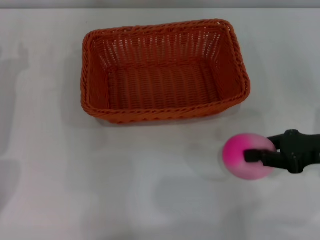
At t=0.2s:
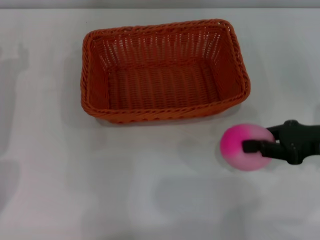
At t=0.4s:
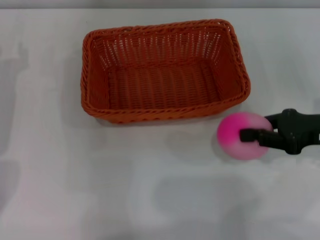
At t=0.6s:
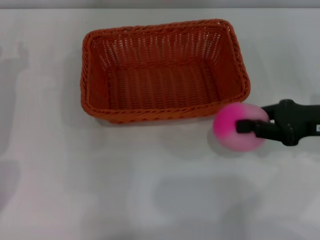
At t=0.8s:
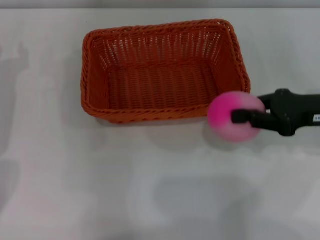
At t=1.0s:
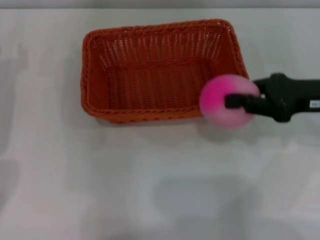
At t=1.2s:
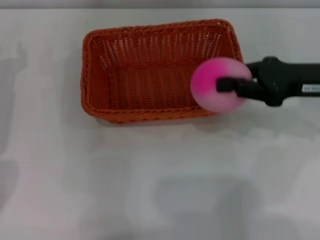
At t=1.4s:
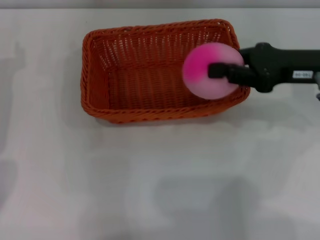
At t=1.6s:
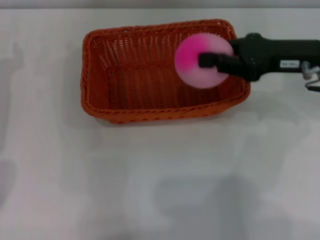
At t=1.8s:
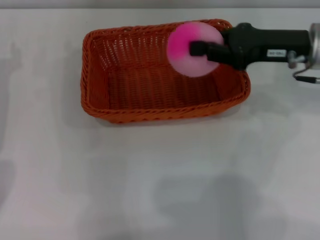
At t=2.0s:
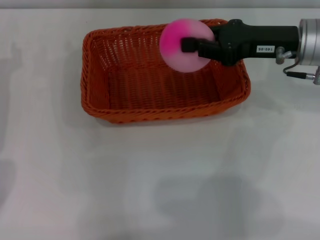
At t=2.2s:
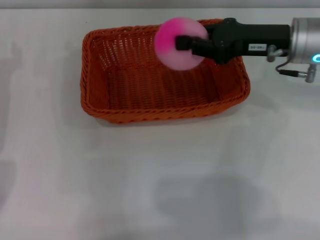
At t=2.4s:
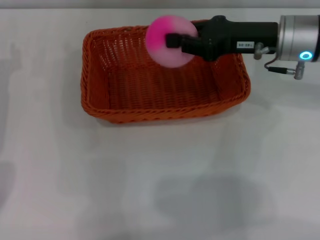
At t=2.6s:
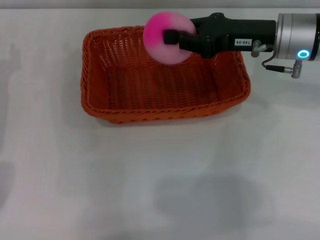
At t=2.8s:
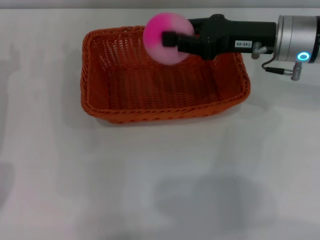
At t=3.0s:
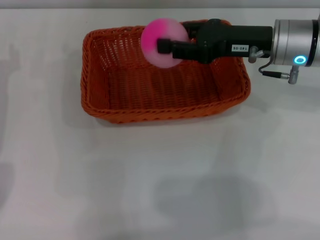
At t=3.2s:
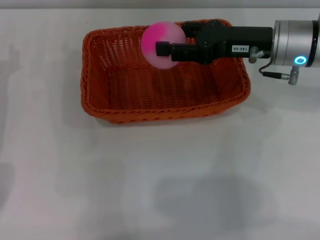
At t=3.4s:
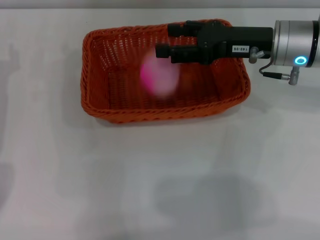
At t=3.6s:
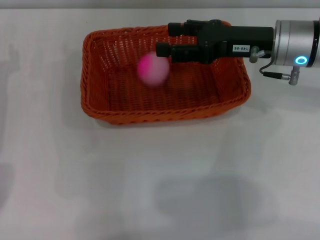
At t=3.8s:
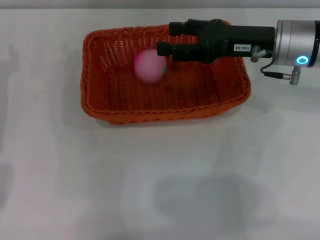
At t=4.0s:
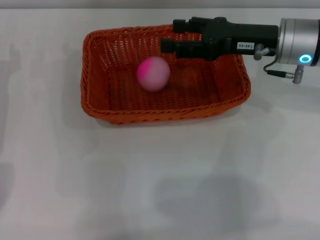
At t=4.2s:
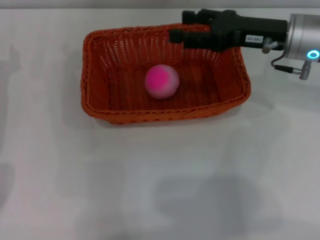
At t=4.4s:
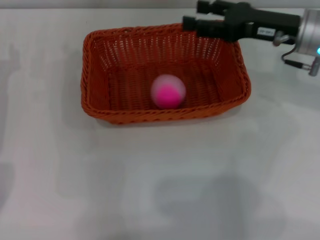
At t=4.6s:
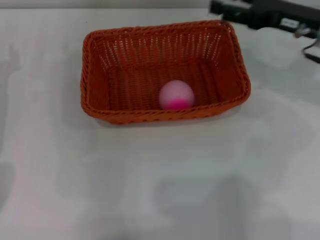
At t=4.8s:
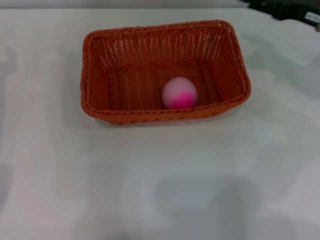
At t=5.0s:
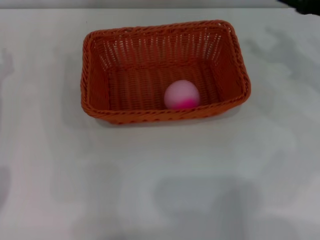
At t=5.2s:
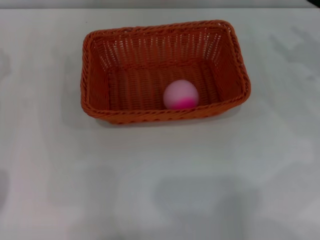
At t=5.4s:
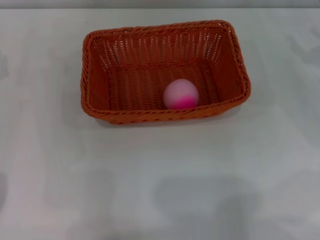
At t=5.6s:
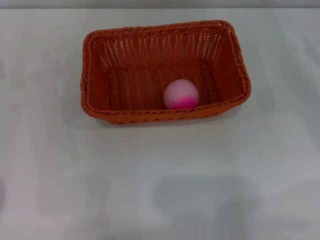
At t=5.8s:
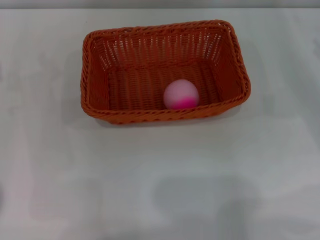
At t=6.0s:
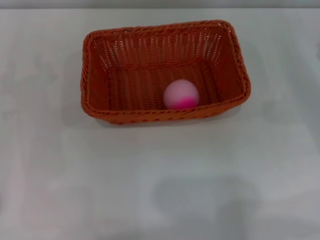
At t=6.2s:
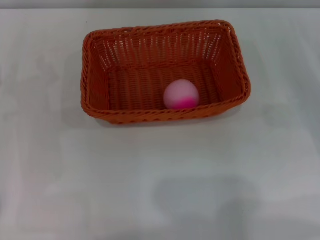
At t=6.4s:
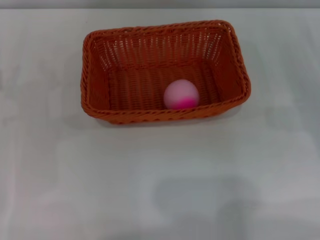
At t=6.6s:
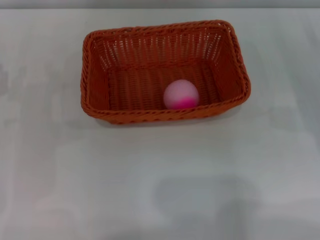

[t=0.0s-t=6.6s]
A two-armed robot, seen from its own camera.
t=0.0s to t=1.6s: The right gripper goes about 15 cm forward, upward and to the left.
t=1.6s to t=3.2s: The right gripper moves roughly 5 cm, and opens its fingers.
t=3.2s to t=5.0s: The right gripper heads to the right, covering some 15 cm, and opens up.
t=5.0s to t=6.6s: The right gripper goes about 10 cm downward and backward.

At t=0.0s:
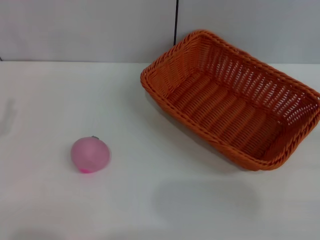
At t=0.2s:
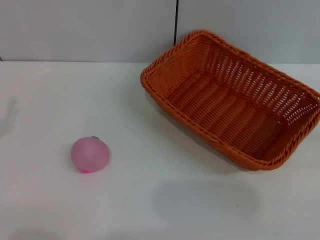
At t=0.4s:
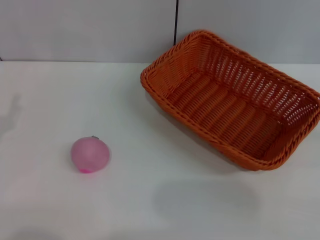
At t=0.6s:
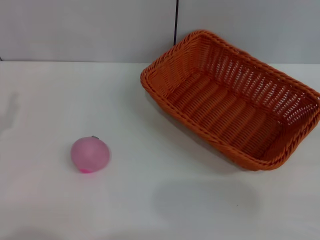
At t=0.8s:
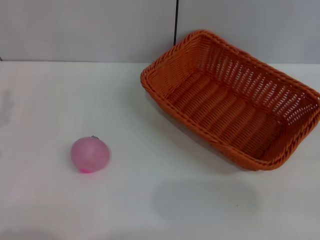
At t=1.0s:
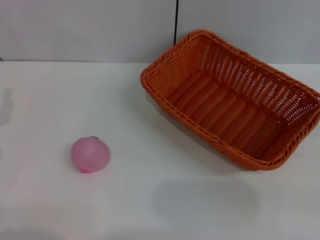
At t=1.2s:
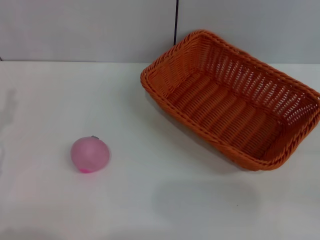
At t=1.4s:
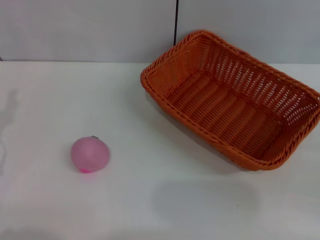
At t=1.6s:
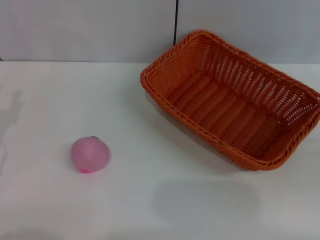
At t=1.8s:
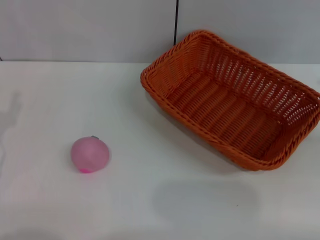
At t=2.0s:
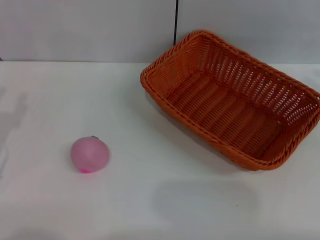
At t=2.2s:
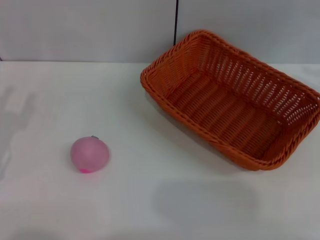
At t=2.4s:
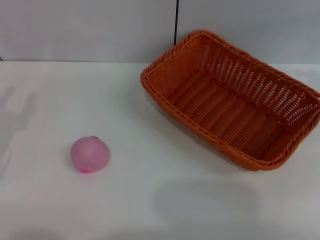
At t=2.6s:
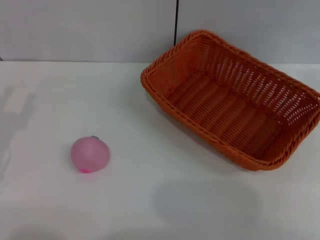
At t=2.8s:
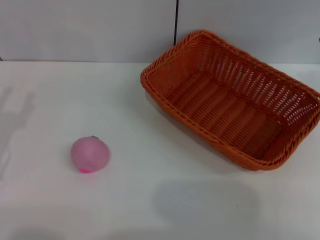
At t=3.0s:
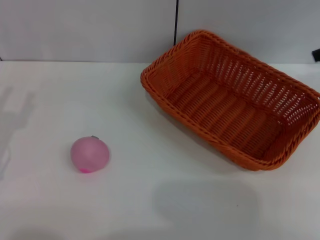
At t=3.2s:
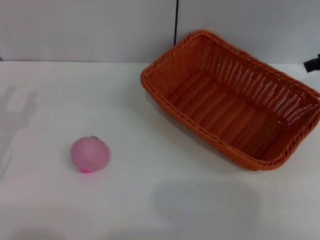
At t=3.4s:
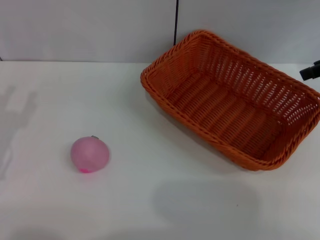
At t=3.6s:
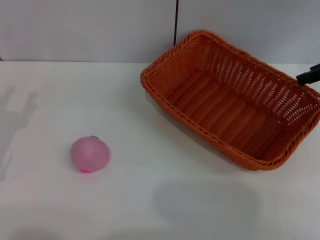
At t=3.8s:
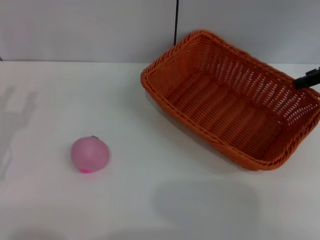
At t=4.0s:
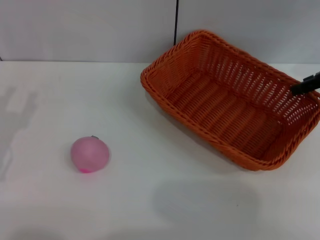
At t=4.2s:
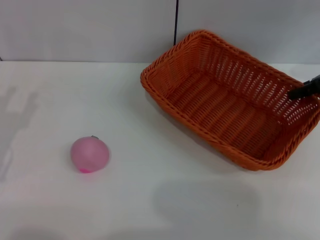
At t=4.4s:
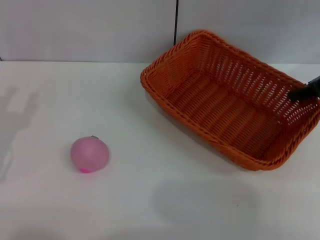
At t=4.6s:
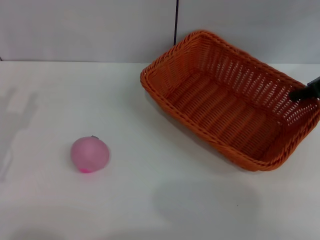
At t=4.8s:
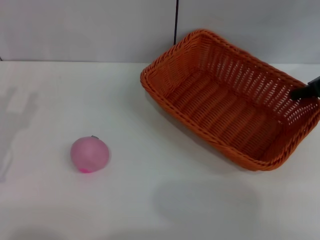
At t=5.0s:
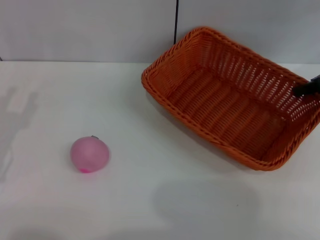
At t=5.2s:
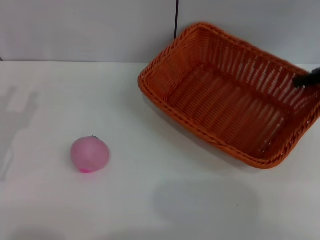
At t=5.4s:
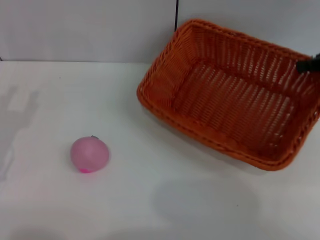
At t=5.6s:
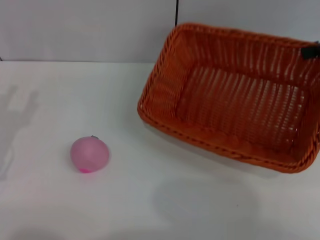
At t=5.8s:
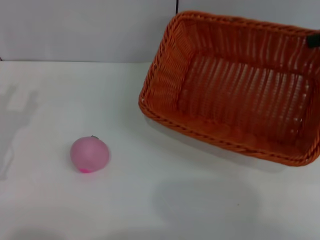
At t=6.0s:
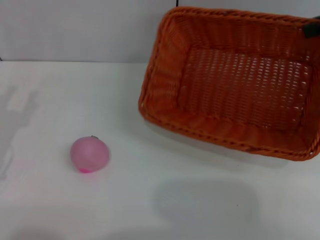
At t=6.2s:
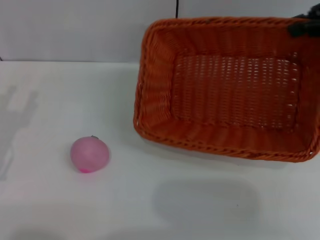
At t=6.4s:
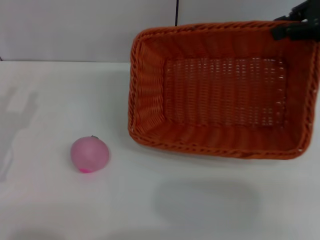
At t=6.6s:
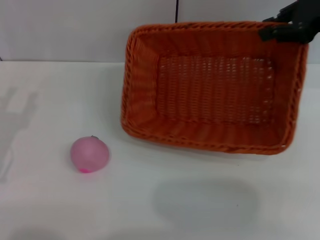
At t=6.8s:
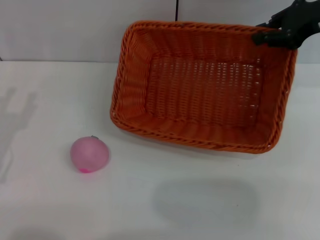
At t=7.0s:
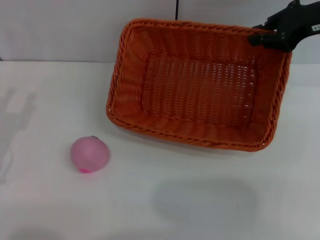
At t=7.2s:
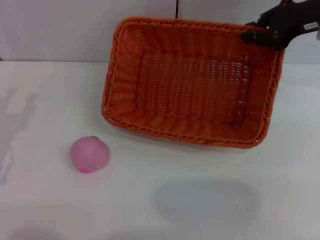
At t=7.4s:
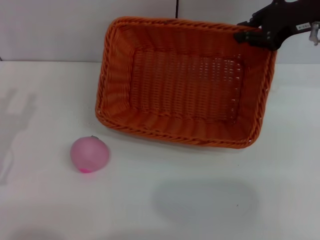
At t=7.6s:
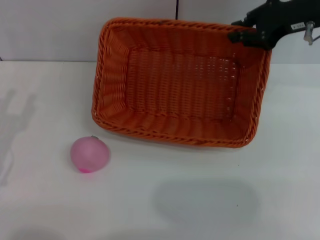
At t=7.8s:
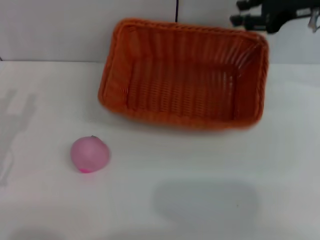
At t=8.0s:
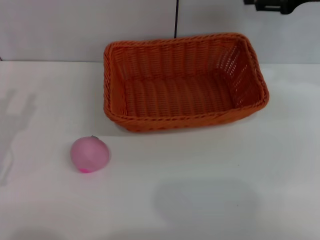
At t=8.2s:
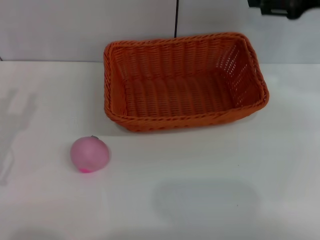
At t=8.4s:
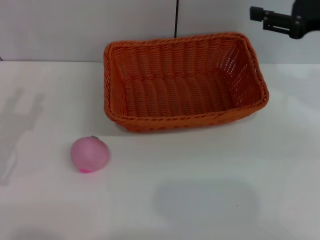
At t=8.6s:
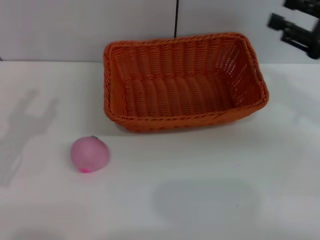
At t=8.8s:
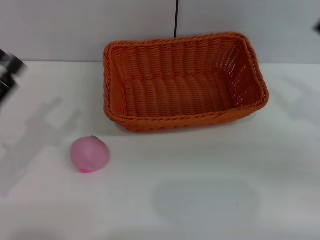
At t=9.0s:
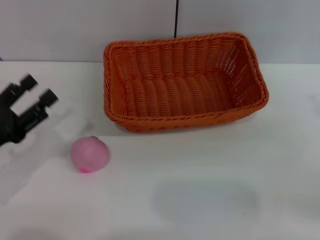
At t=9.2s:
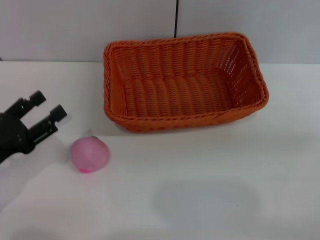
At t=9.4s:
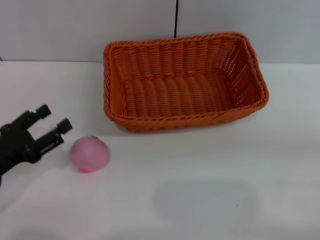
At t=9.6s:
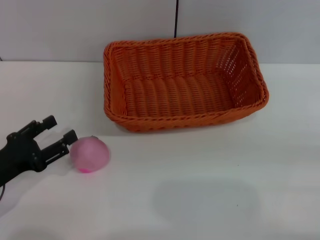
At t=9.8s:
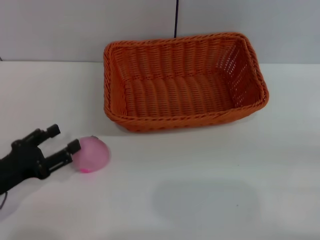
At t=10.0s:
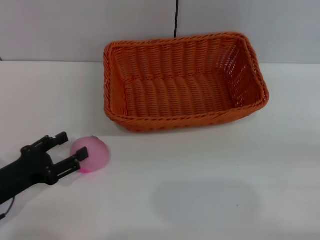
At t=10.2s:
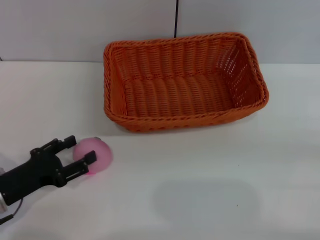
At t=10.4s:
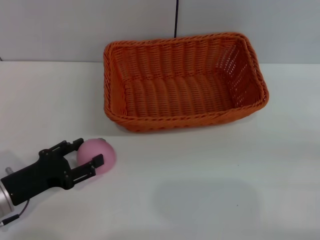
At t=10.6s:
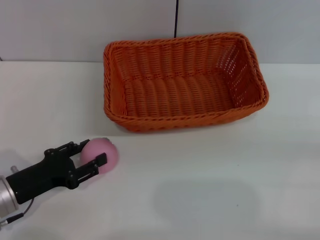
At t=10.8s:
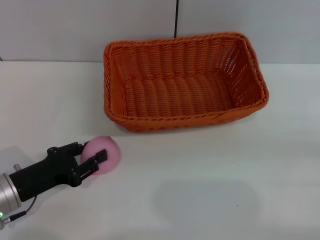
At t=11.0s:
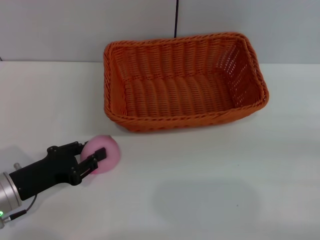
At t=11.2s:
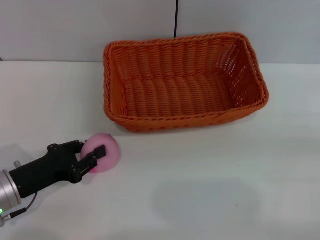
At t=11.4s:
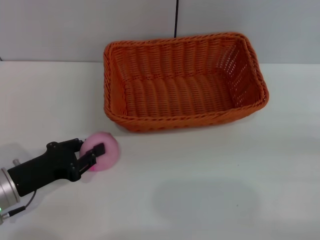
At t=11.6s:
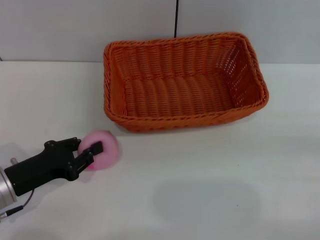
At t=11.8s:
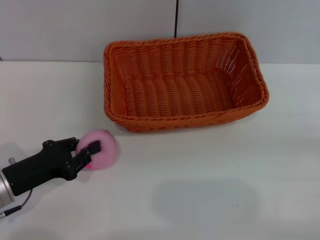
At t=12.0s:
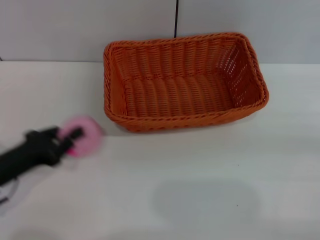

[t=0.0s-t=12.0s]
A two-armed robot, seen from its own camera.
Step, t=0.0s to t=5.0s: Pick up the light basket with the right gripper.
Step, t=5.2s to t=8.4s: Place the light basket in the center of view with the right gripper.
t=3.0s to t=4.4s: The right gripper is displaced downward by about 10 cm, and closes.
t=4.4s to t=6.0s: The right gripper heads upward, covering approximately 10 cm, and closes up.
t=6.0s to t=7.6s: The right gripper is displaced to the left and downward by approximately 10 cm.
t=7.6s to t=9.0s: The right gripper goes roughly 25 cm backward, to the right and downward, and opens.
t=9.0s to t=10.4s: The left gripper heads downward, covering approximately 5 cm.
t=10.4s to t=12.0s: The left gripper closes its fingers.

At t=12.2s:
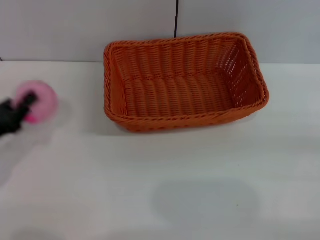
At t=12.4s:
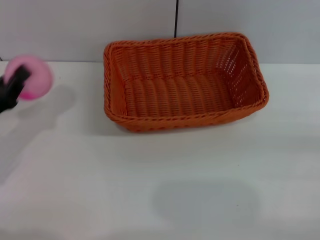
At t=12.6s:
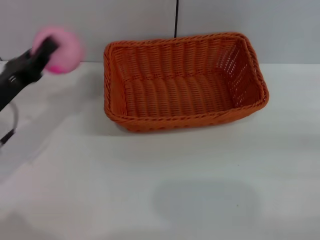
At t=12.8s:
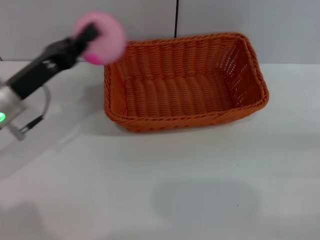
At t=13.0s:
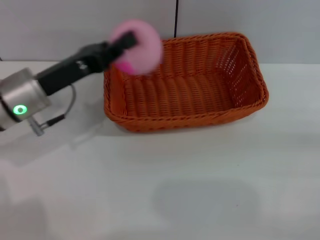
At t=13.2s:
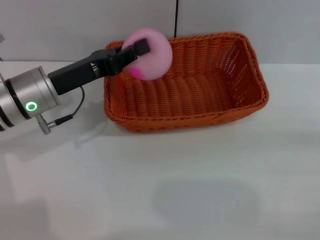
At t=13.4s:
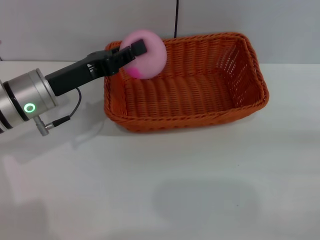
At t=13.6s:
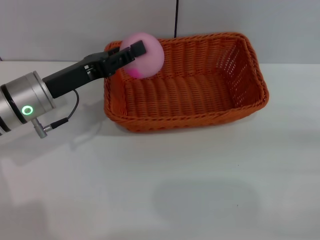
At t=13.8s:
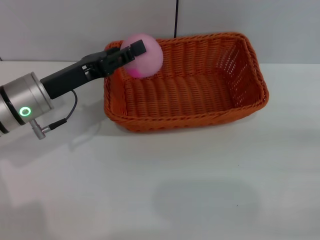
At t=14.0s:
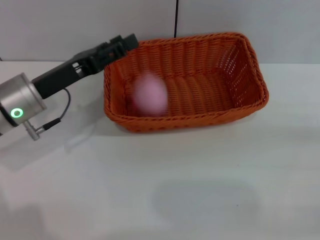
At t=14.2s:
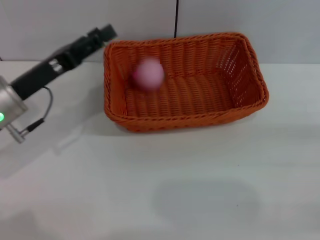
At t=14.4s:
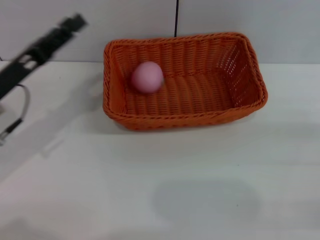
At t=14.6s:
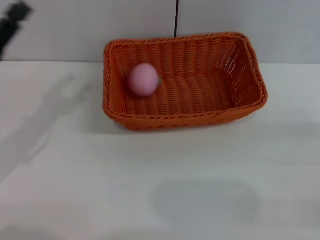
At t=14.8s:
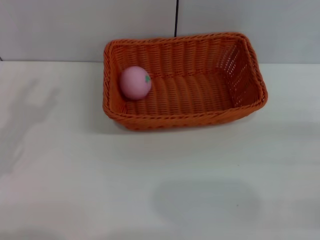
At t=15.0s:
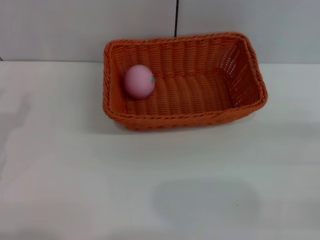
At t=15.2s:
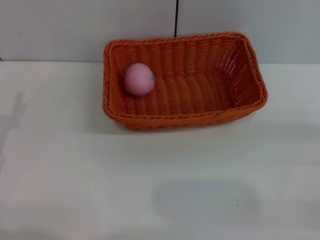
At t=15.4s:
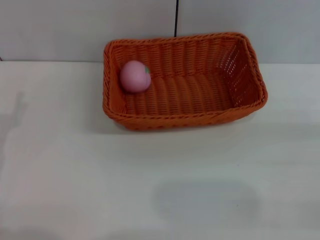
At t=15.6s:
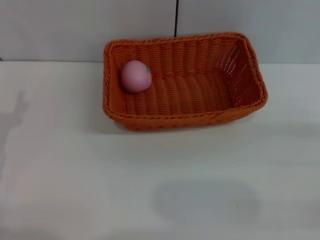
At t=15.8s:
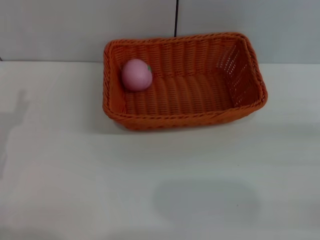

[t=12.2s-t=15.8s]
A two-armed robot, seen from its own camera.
Step, t=12.6s to t=14.0s: Place the peach into the basket with the left gripper.
t=12.2s to t=14.0s: The left gripper is displaced to the right, forward and upward by some 15 cm, and opens up.
t=14.0s to t=15.8s: The left gripper travels backward and to the left by some 15 cm.
